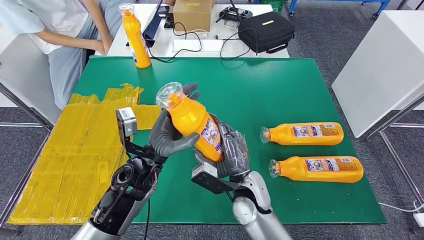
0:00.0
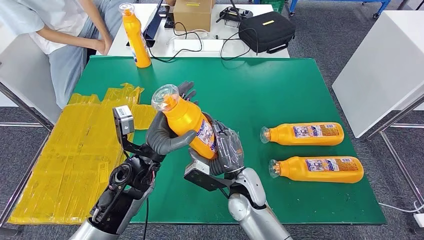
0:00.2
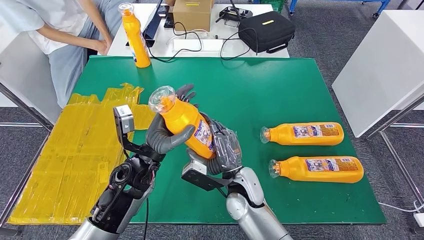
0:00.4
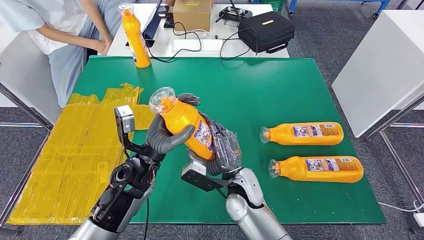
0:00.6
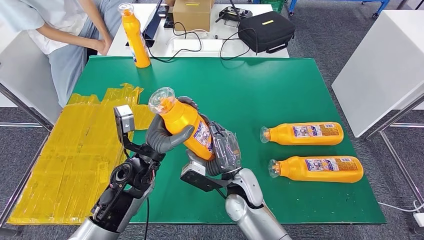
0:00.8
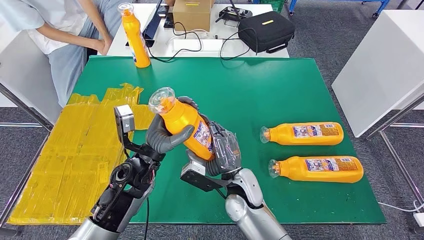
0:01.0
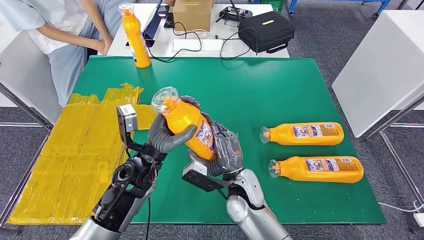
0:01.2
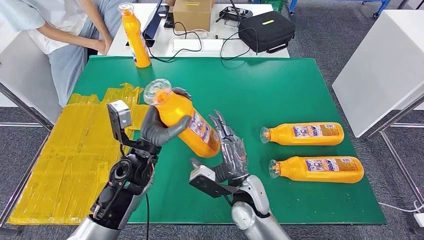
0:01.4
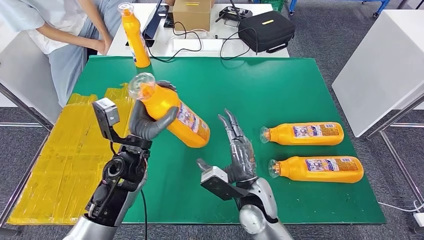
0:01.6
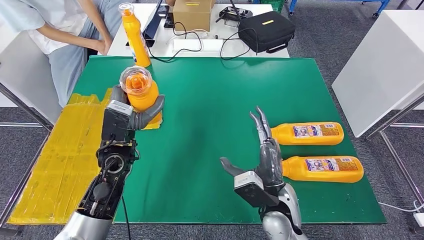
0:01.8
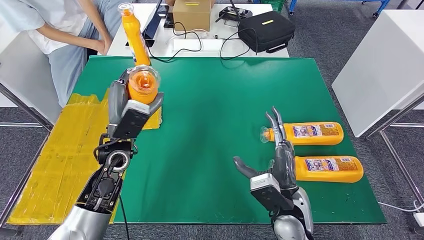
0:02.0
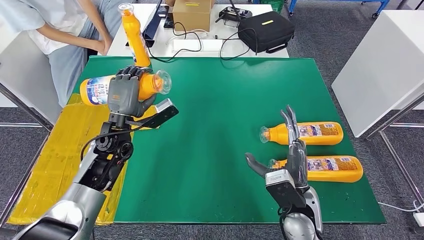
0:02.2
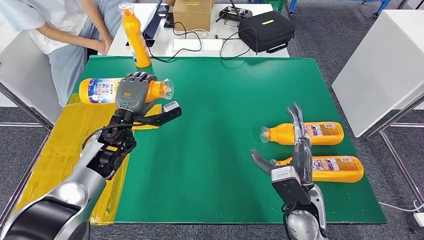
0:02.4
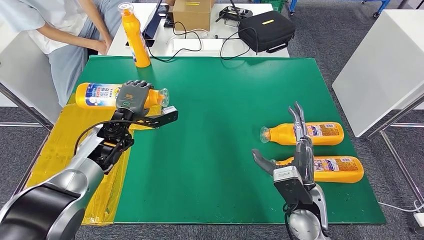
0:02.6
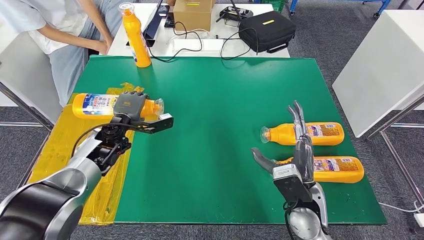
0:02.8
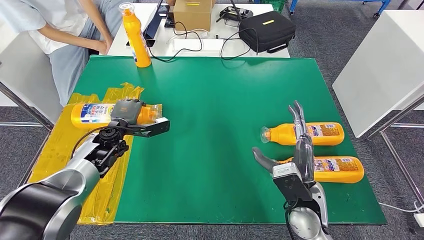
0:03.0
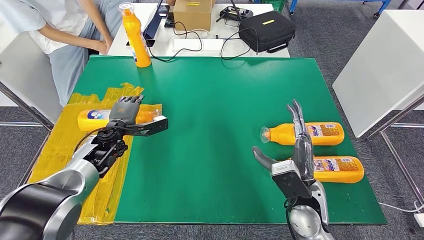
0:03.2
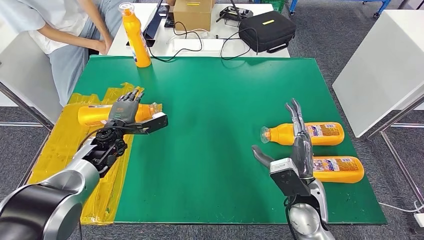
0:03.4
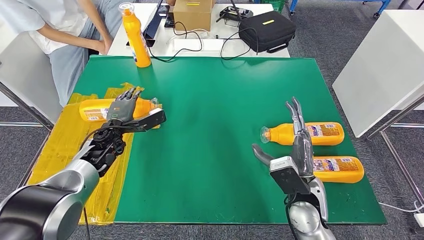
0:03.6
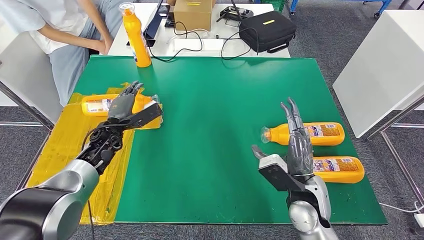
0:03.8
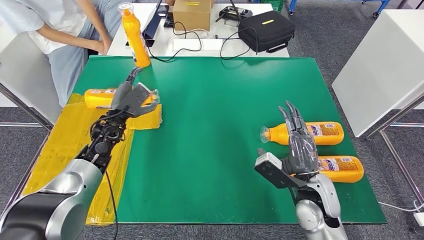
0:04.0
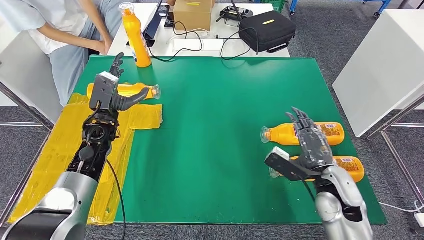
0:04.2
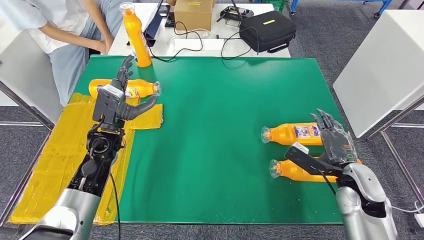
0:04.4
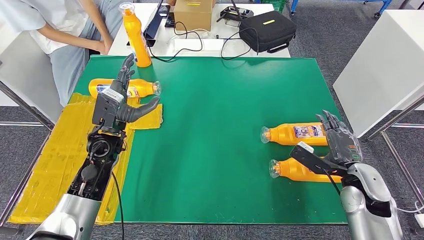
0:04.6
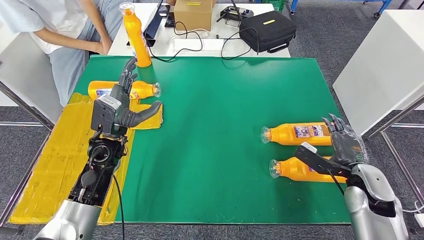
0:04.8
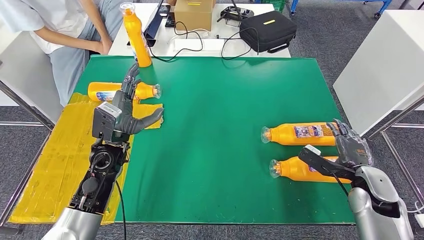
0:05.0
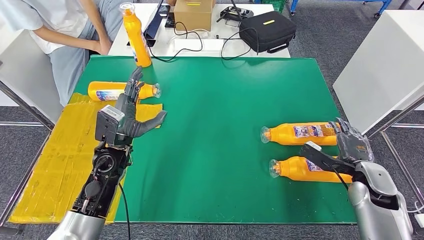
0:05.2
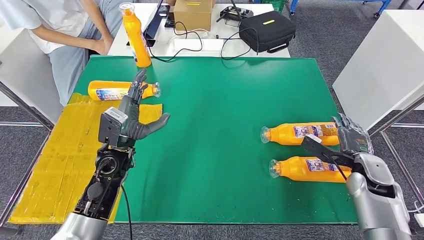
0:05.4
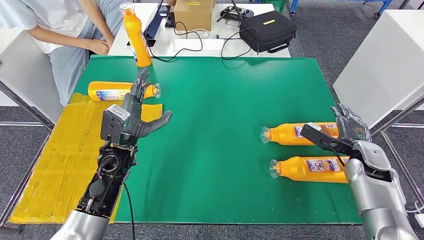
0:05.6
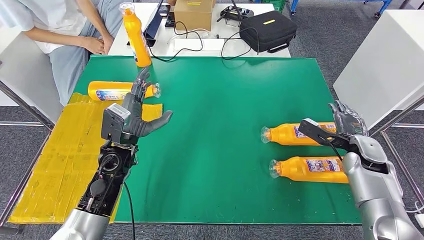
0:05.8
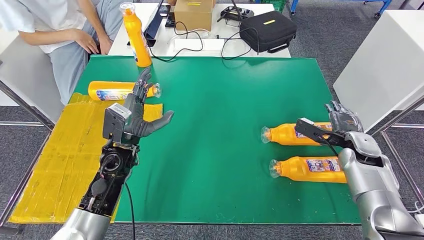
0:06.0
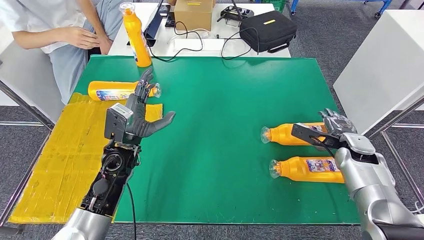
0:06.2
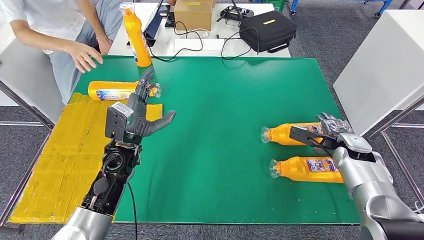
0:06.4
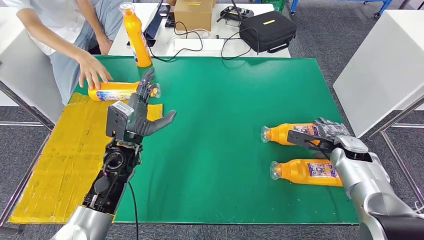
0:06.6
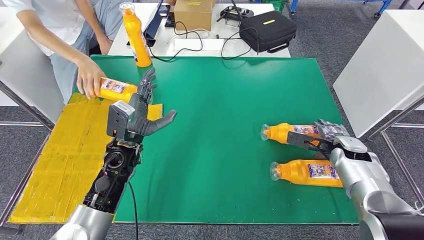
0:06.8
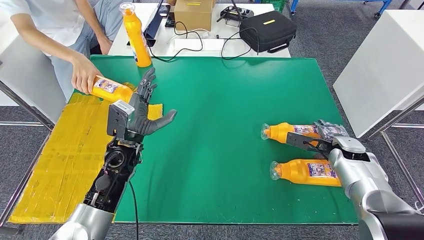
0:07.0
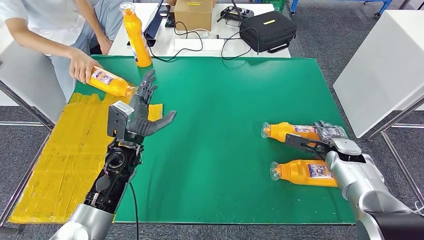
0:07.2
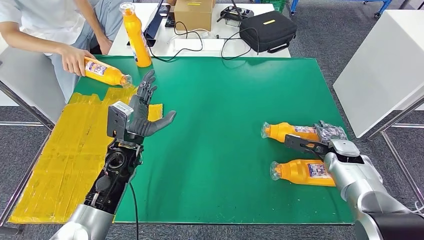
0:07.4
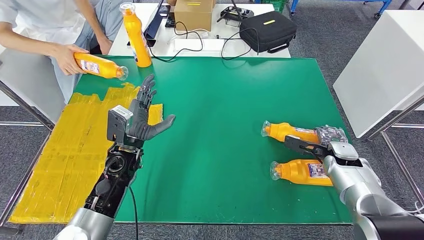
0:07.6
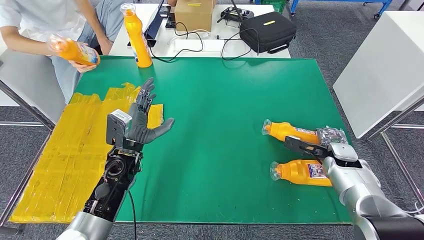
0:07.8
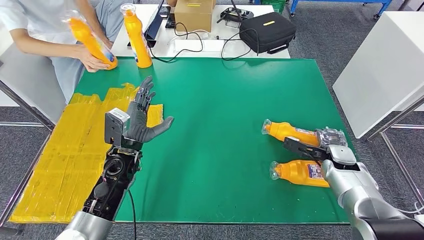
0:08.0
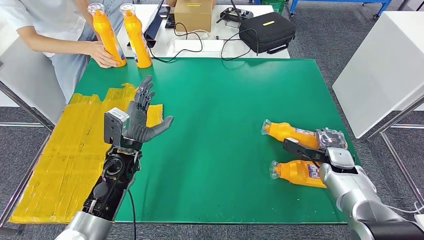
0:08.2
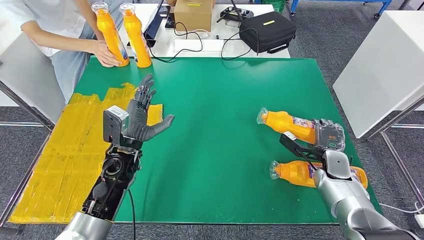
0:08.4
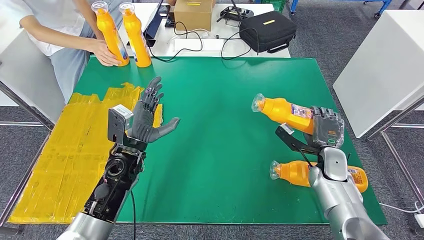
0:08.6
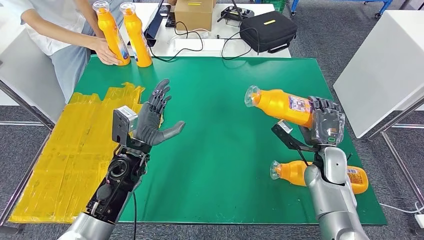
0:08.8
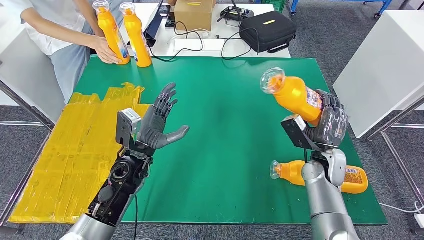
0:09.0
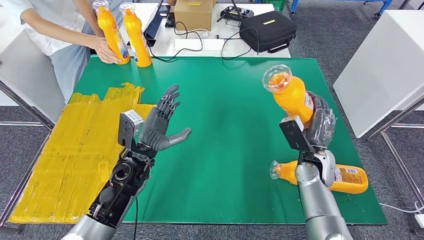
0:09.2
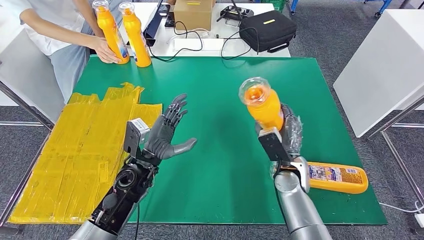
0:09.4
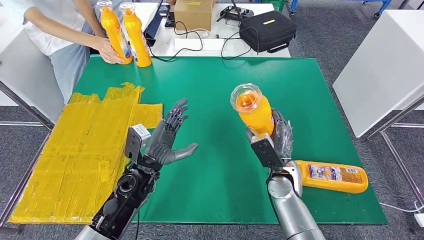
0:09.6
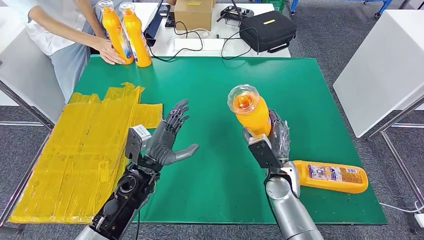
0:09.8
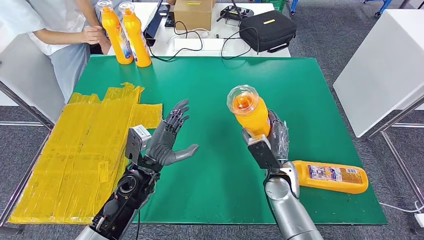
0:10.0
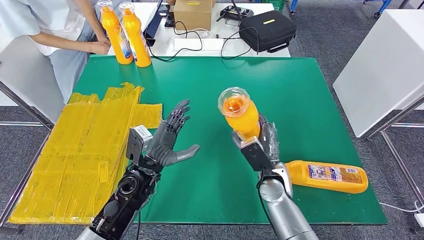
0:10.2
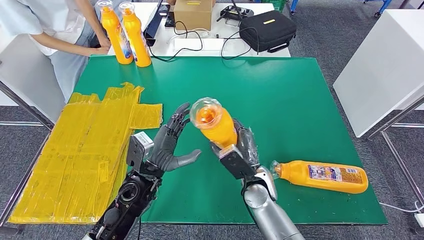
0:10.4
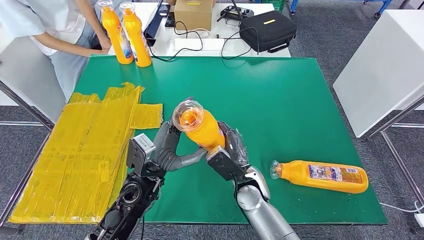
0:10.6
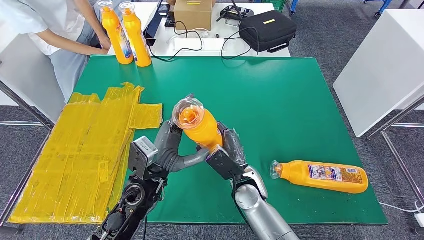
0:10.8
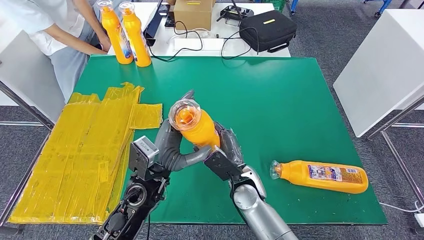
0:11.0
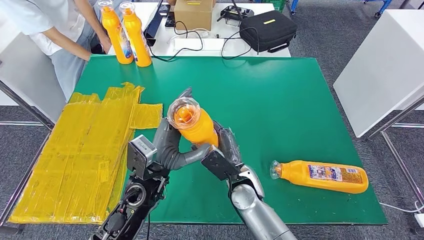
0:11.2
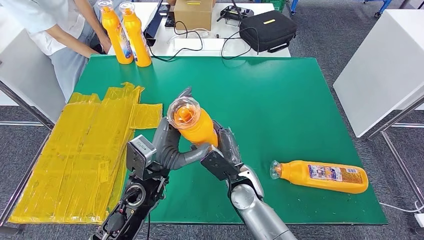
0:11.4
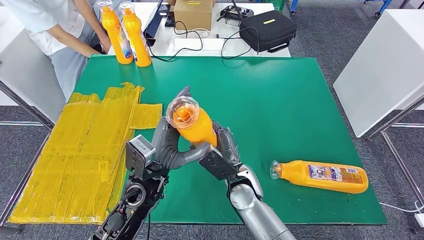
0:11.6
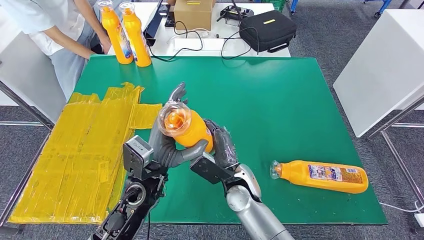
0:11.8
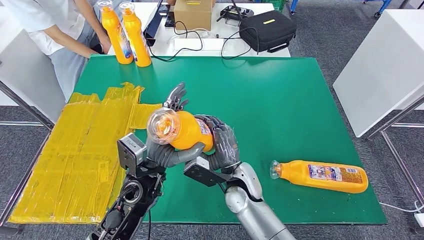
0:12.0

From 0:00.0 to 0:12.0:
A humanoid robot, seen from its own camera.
Step, from 0:00.0 to 0:03.8: Flip the bottle to face forward.
Step, from 0:04.0 to 0:08.8: Pick up the bottle from the table.
From 0:00.0 to 0:01.6: The hands move only a little.
From 0:04.4 to 0:06.0: The right hand shifts approximately 10 cm forward and to the right. The left hand shifts by some 5 cm.
From 0:06.0 to 0:07.6: The right hand shifts some 5 cm downward.
From 0:10.4 to 0:12.0: The right hand shifts approximately 5 cm to the left. Meanwhile the left hand moves some 5 cm.

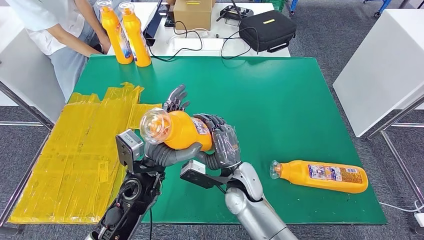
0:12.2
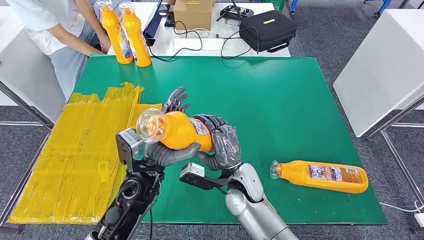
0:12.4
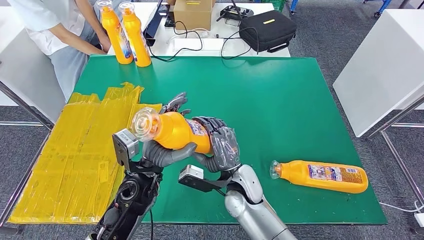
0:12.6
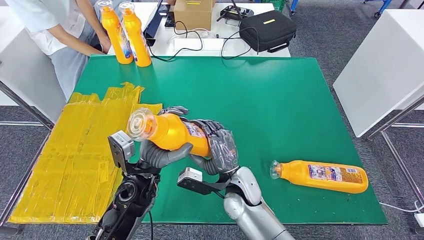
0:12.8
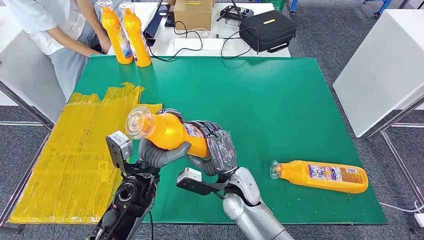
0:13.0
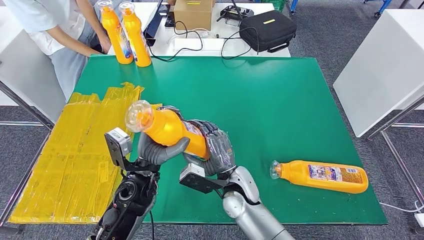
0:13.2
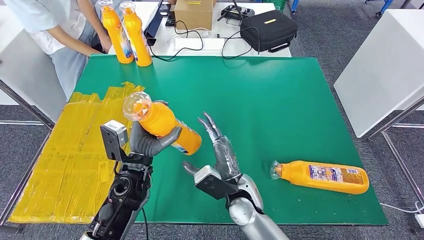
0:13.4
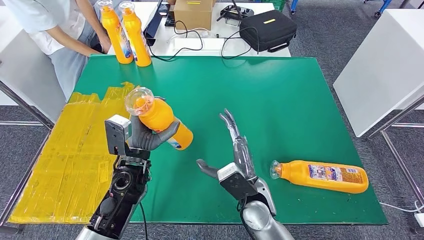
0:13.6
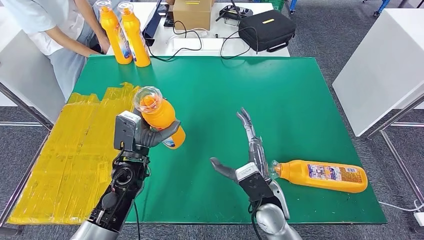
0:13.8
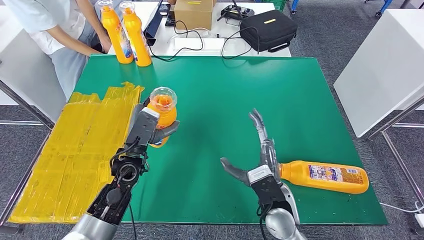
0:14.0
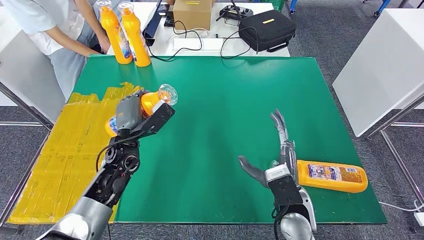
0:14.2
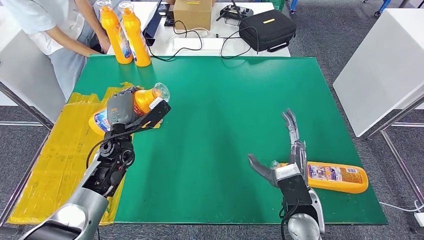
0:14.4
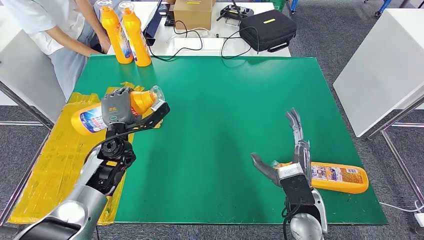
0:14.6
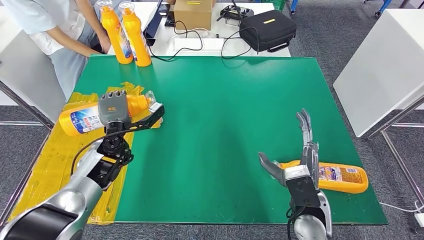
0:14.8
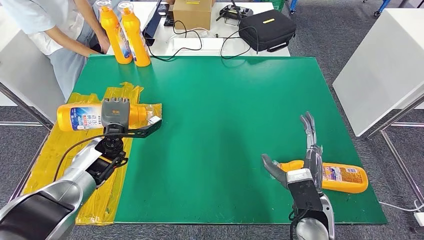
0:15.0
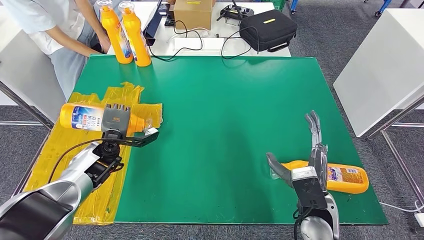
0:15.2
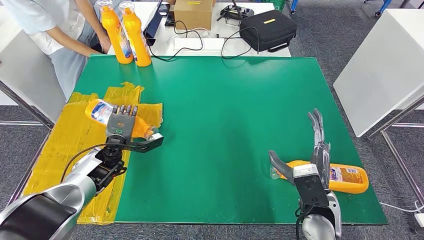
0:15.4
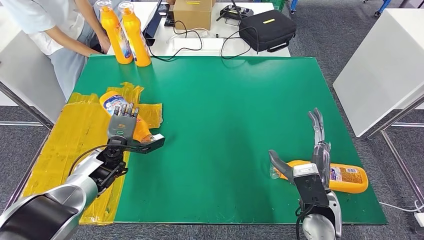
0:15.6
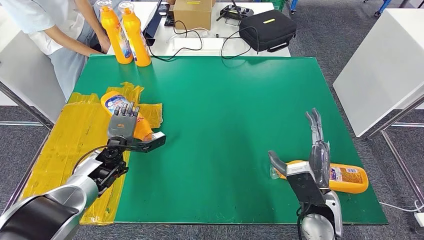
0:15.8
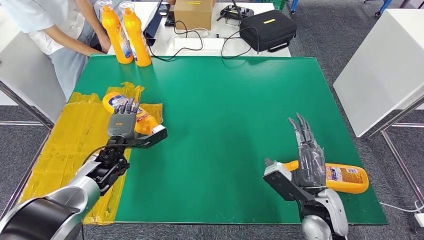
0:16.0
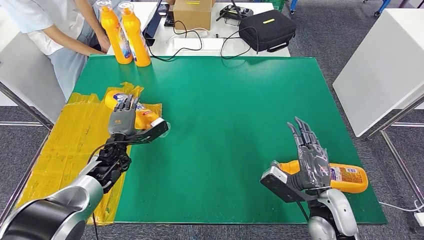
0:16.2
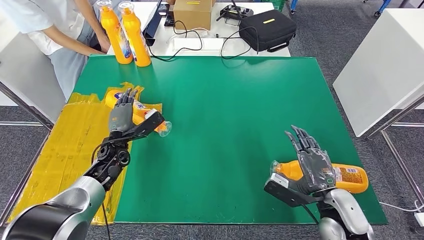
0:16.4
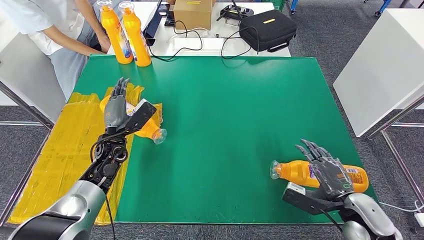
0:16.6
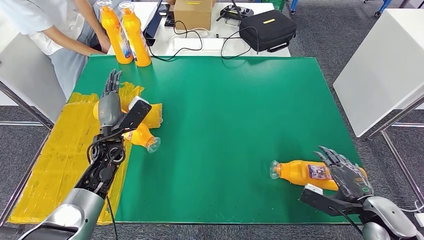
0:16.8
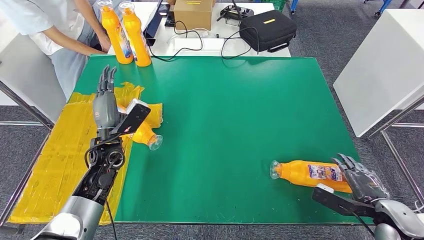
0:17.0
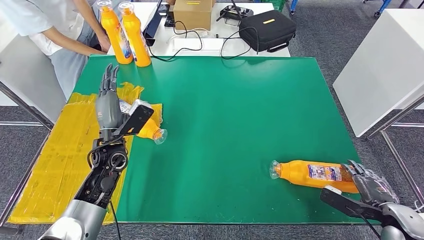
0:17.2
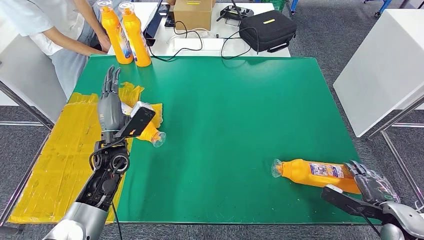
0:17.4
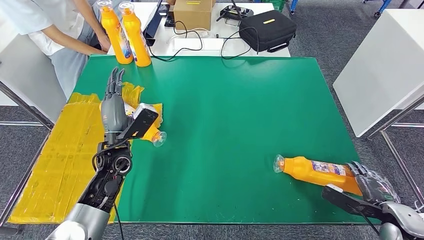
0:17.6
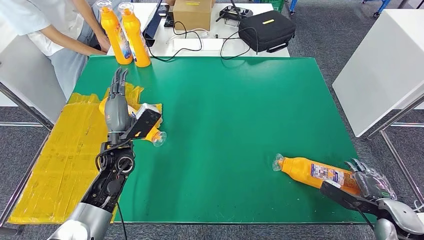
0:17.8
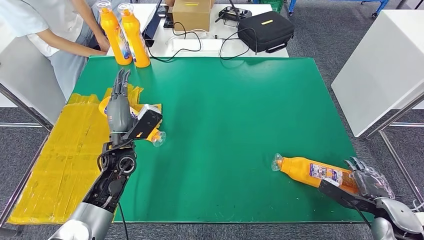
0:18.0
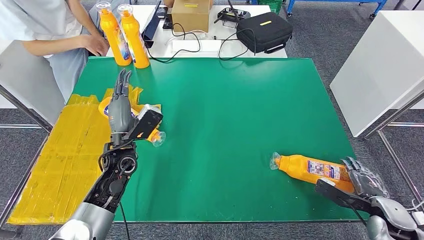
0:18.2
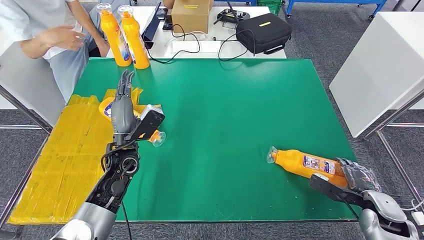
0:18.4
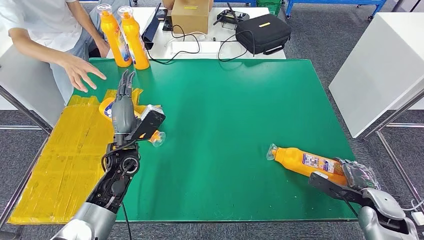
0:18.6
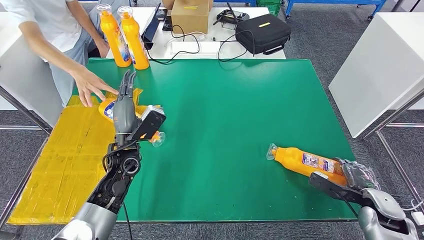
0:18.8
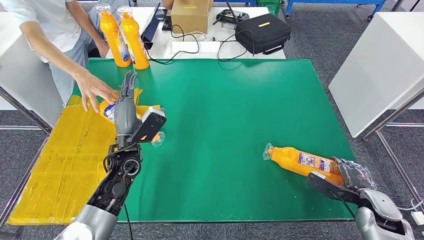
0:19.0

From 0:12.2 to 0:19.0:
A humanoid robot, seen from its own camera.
Step, from 0:12.2 to 0:15.4: Flip the bottle to face forward.
From 0:12.2 to 0:13.6: The left hand moves approximately 5 cm.
From 0:16.2 to 0:17.6: The right hand goes roughly 20 cm to the right. Meanwhile the left hand travels upward by approximately 5 cm.
